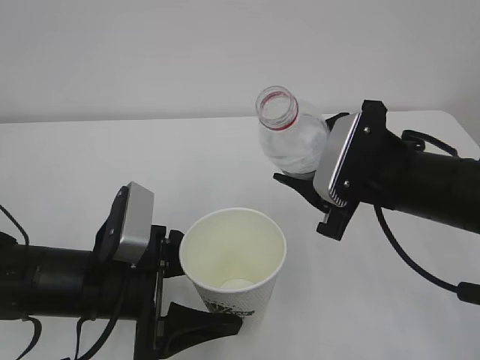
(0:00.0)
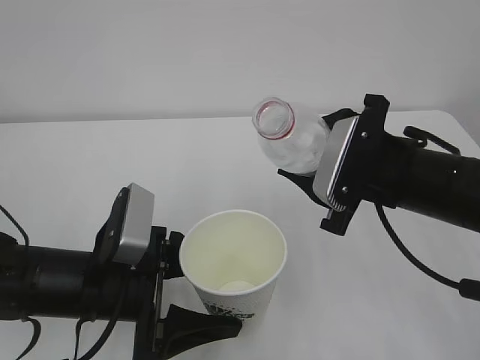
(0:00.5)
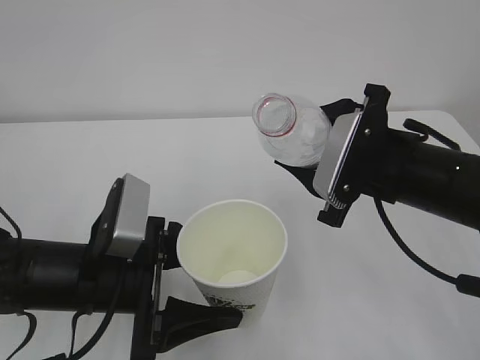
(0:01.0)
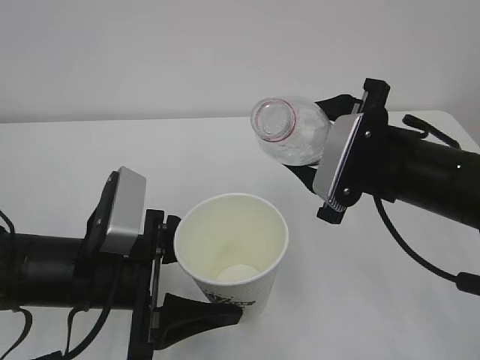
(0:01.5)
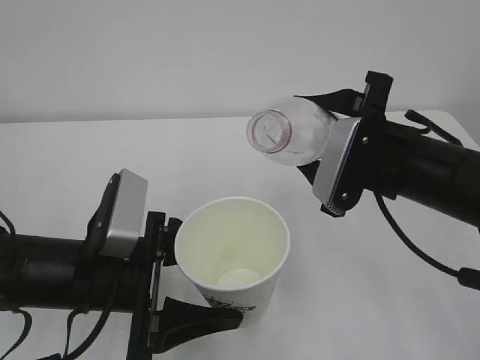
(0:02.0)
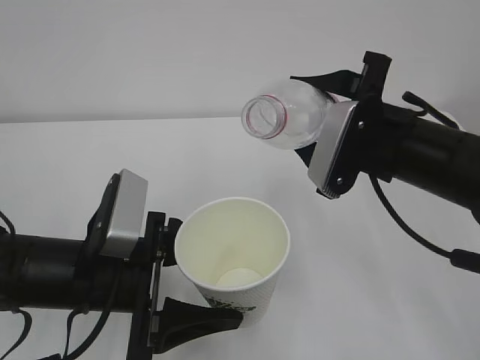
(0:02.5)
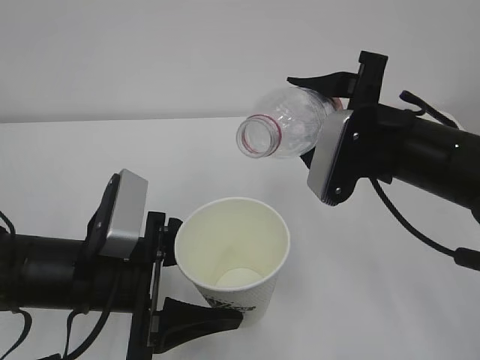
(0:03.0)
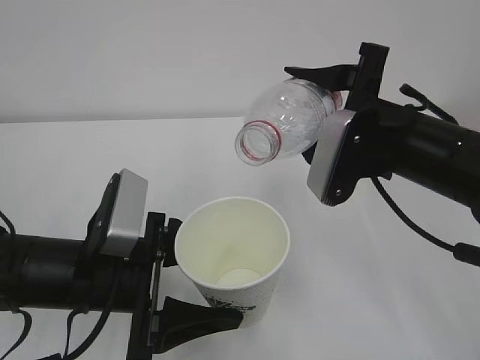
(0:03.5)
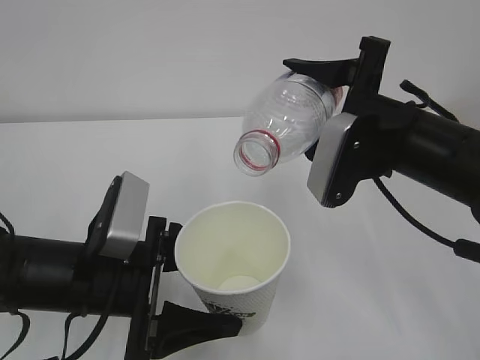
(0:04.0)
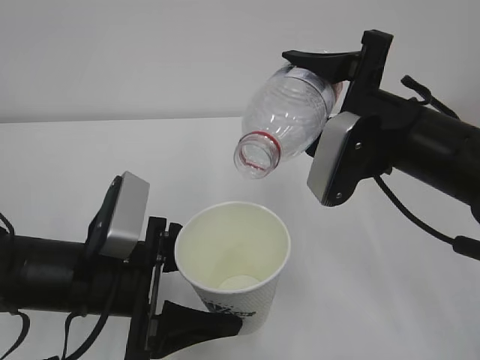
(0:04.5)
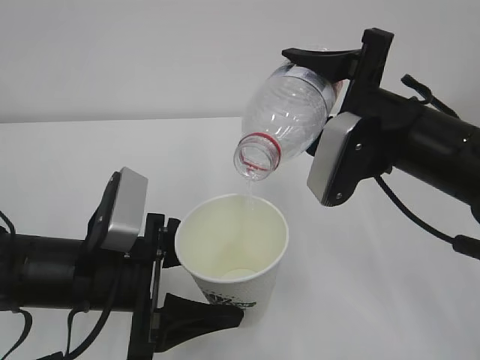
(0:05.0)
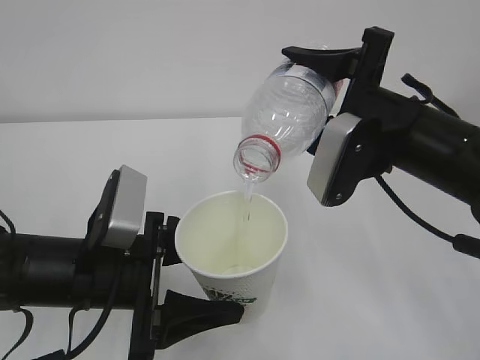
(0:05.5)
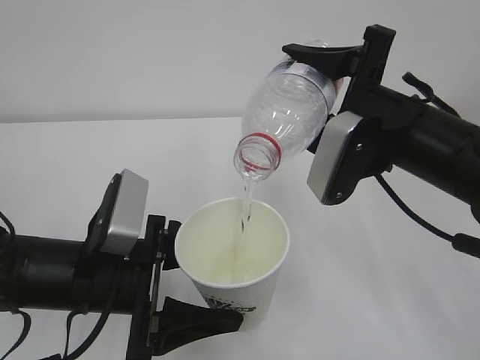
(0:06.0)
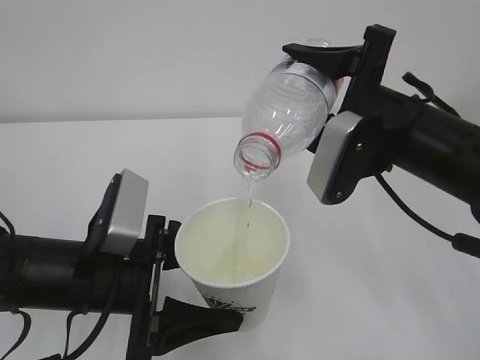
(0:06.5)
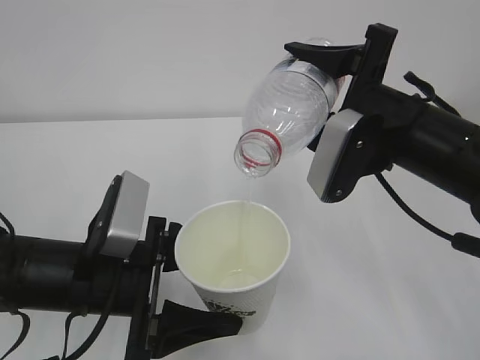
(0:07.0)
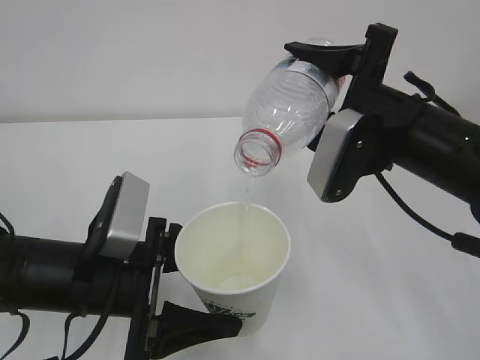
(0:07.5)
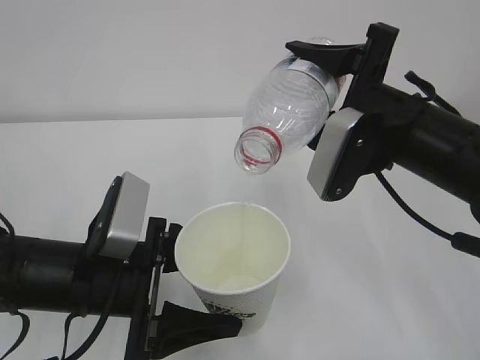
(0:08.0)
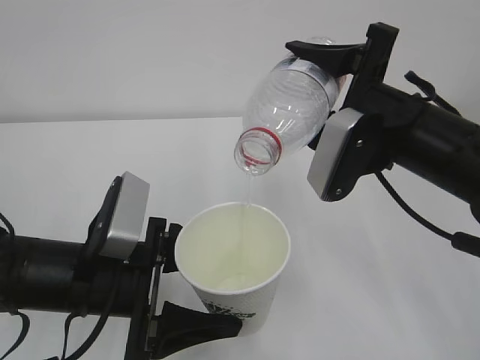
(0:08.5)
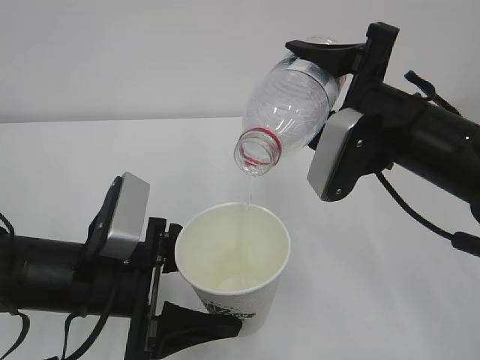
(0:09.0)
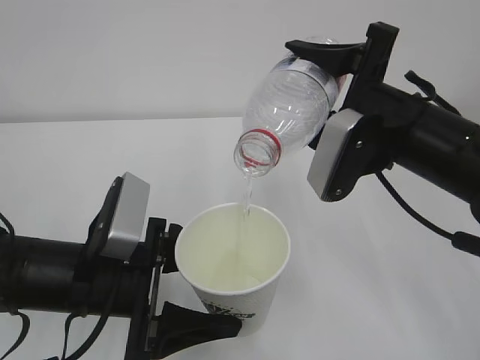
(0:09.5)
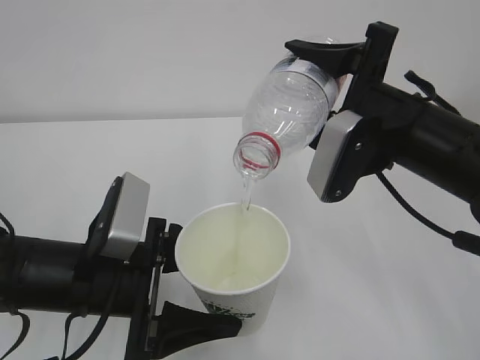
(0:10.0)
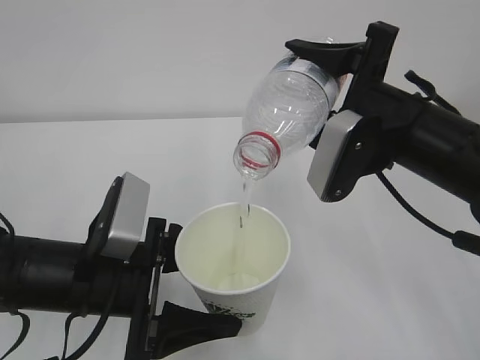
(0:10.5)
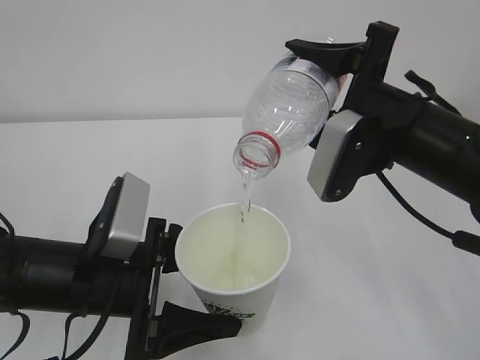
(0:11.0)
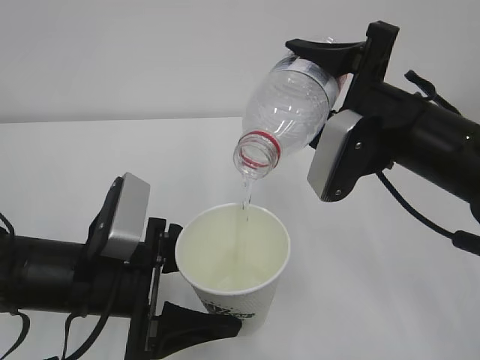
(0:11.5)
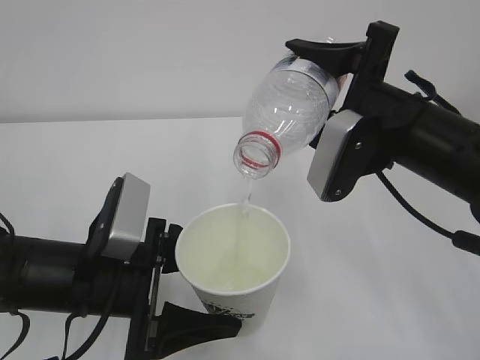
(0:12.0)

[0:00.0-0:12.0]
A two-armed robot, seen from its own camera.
0:00.0 to 0:02.0: There are only small adjustments of the grippers.
0:04.0 to 0:06.0: The grippers move only a little.
0:06.0 to 0:12.0: Neither gripper changes place.

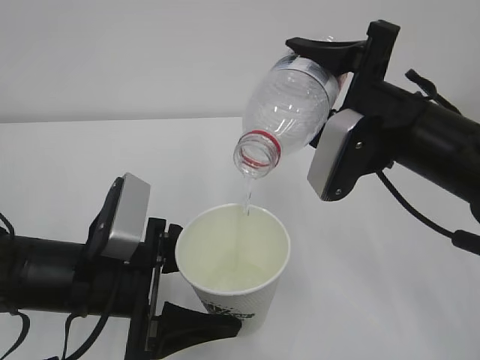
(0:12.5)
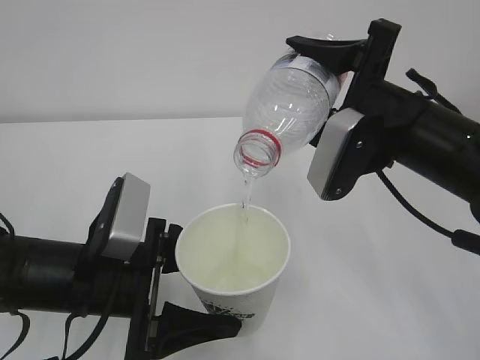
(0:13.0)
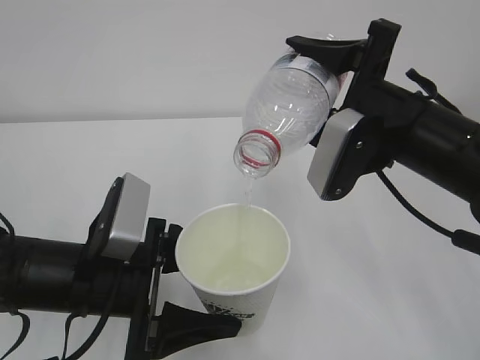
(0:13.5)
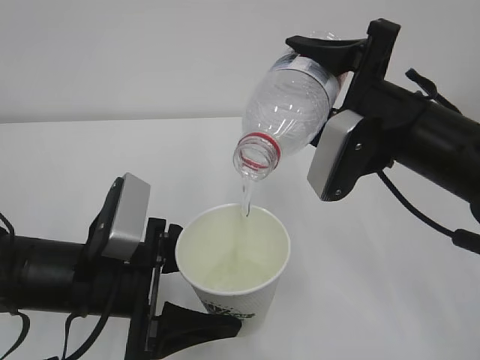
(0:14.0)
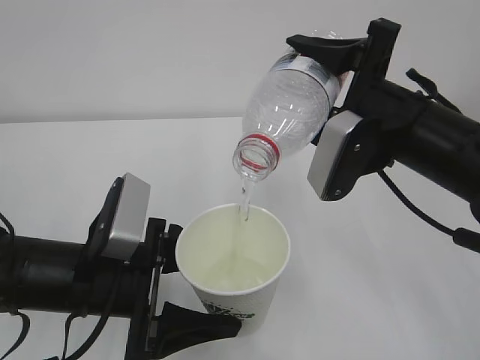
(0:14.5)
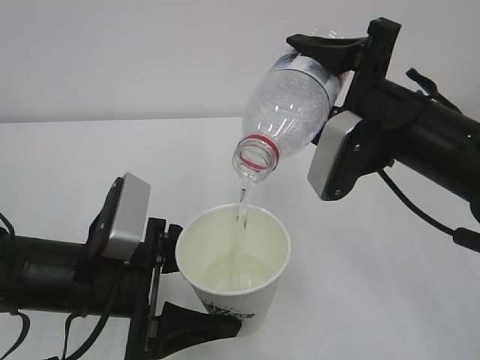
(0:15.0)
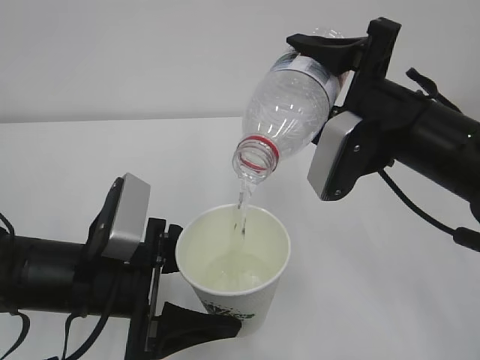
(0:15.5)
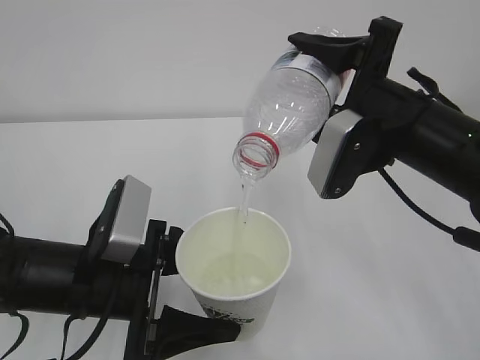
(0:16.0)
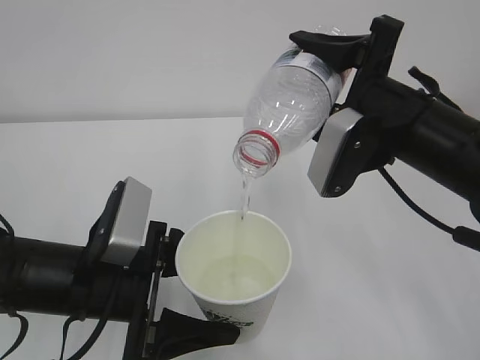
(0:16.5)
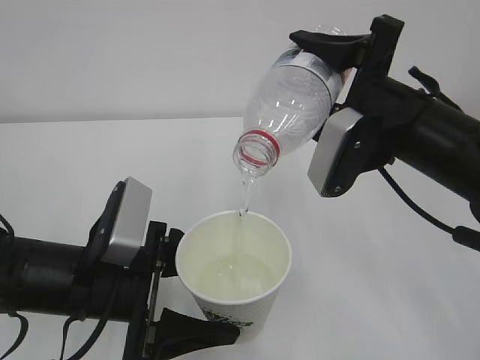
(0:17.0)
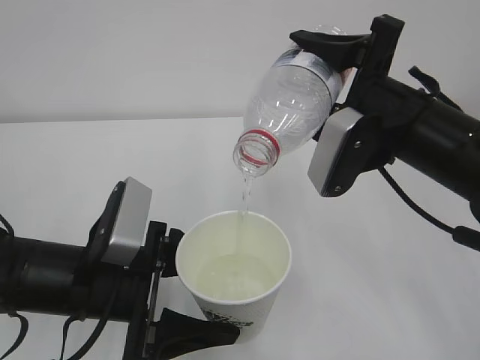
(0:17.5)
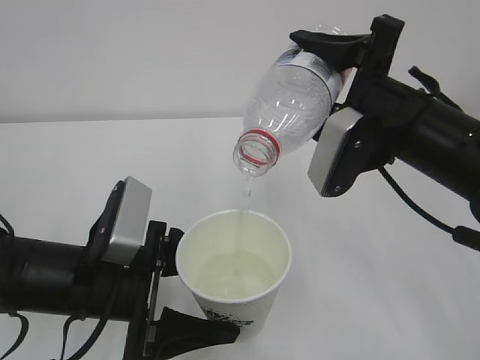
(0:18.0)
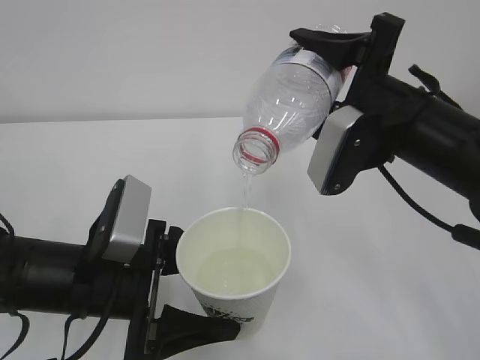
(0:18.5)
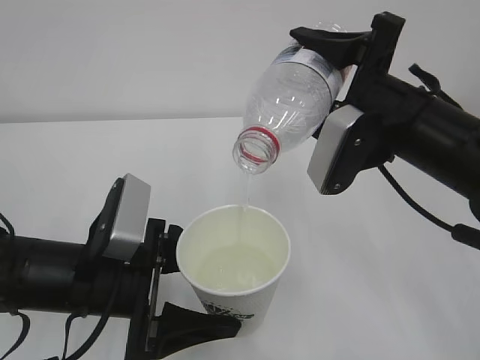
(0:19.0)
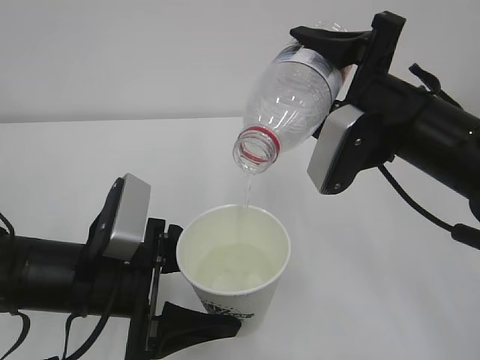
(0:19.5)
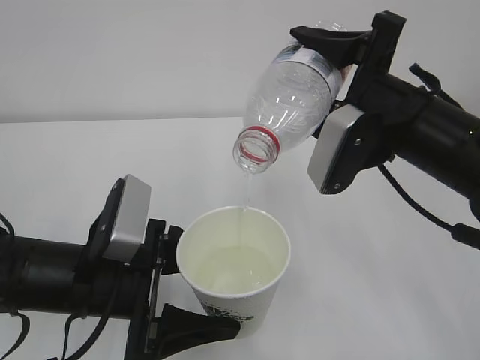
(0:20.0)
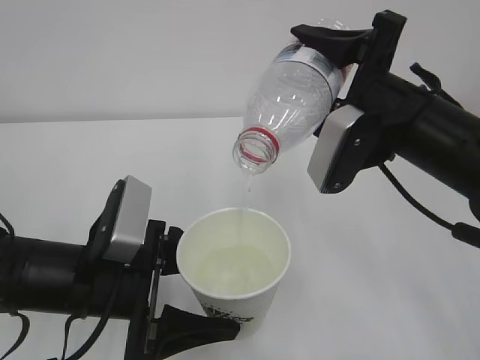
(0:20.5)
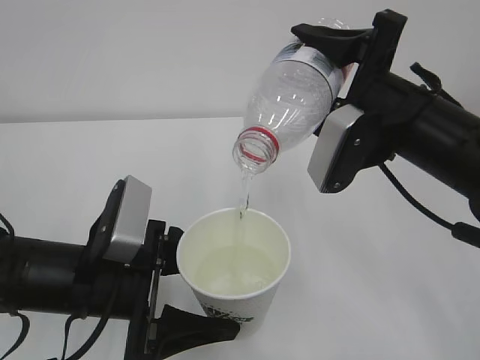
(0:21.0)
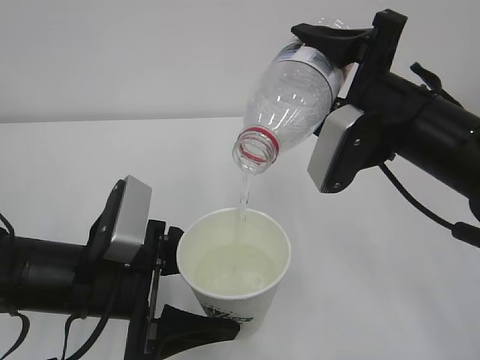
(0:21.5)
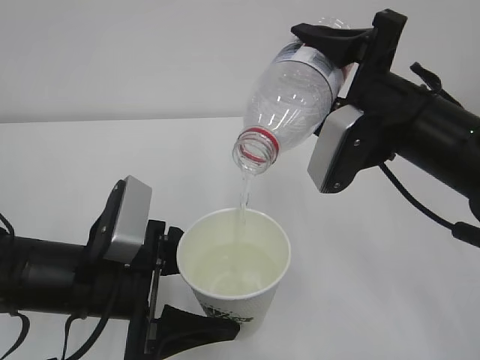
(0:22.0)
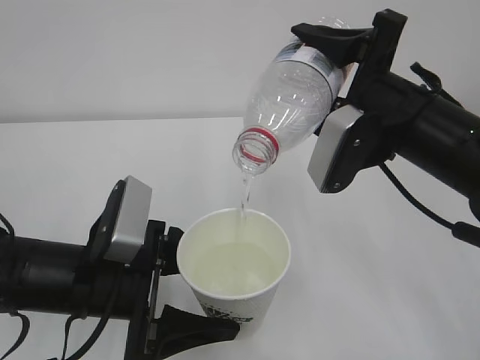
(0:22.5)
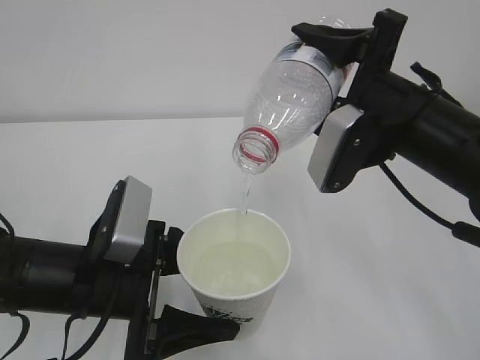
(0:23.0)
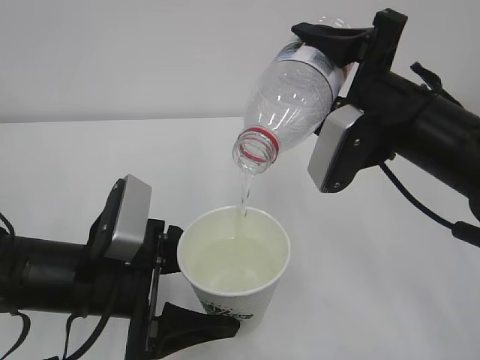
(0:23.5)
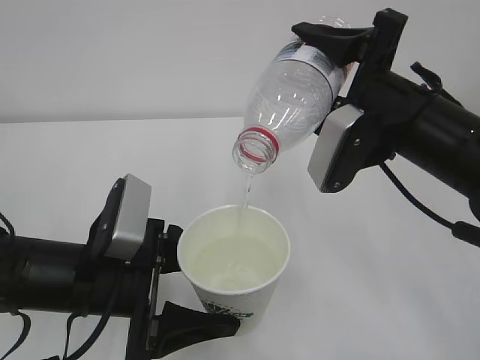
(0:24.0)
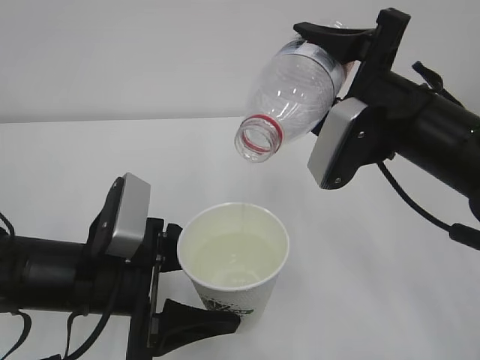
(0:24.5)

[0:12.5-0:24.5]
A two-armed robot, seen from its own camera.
0:12.5 to 0:18.5: Both grippers stay about where they are.
0:18.5 to 0:24.5: Both grippers stay about where they are.

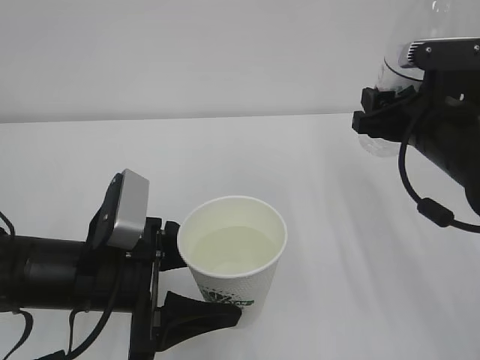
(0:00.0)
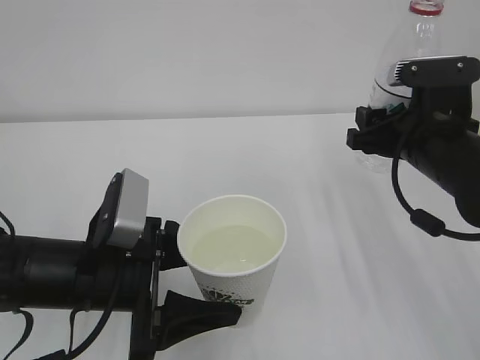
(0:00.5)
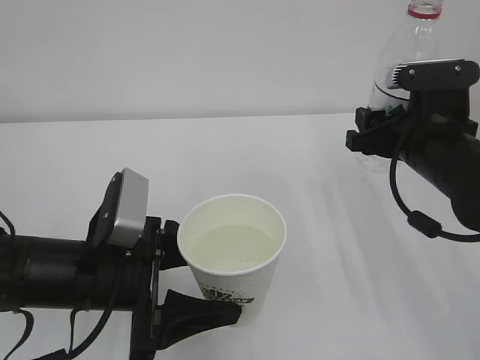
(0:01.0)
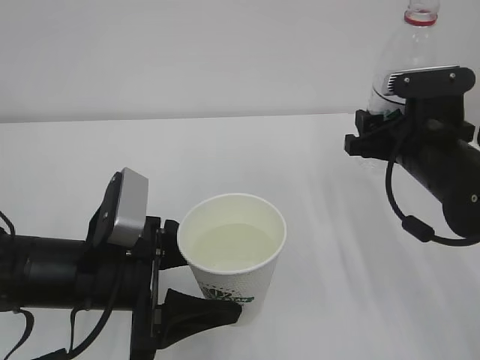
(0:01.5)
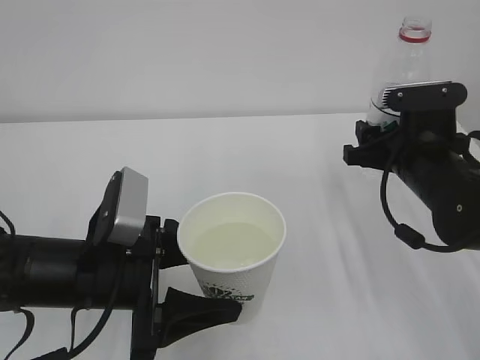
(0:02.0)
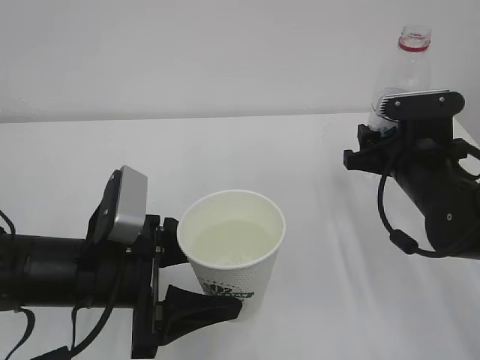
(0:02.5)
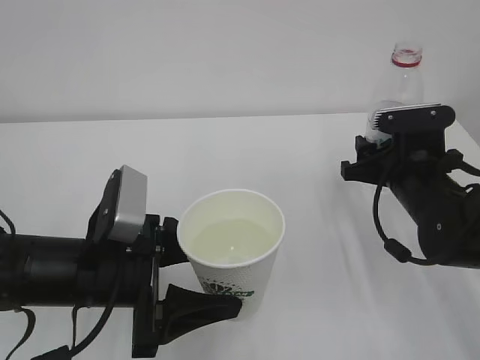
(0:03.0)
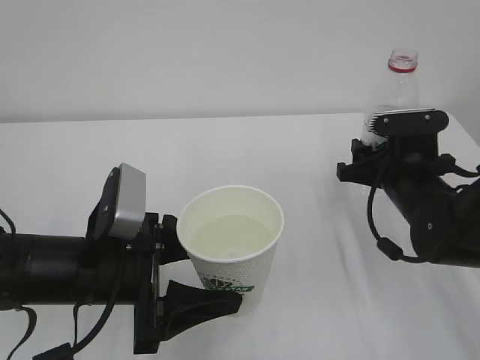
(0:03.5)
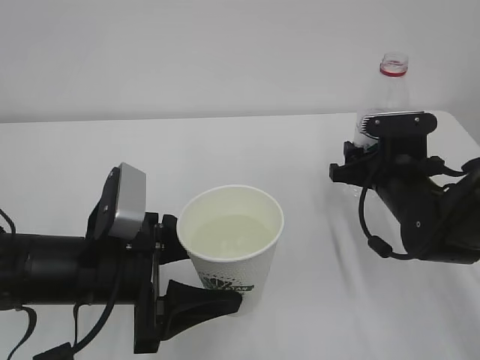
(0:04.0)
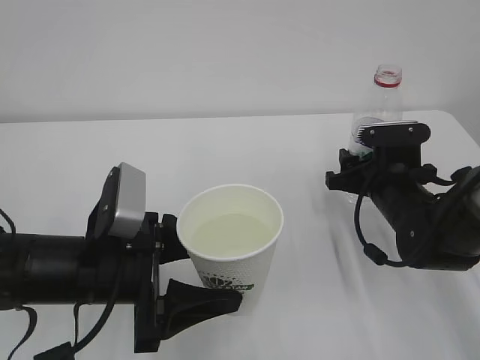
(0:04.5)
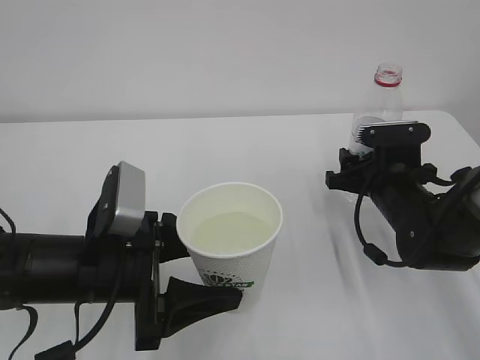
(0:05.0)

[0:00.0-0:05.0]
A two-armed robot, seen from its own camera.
0:00.0 to 0:02.5: The right gripper goes approximately 5 cm downward.
0:02.5 to 0:05.0: The right gripper travels downward by approximately 5 cm.
